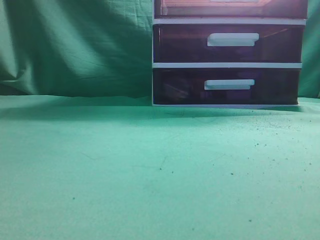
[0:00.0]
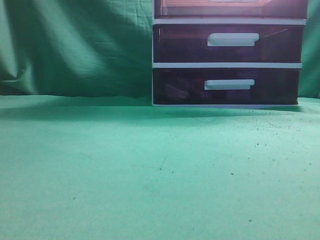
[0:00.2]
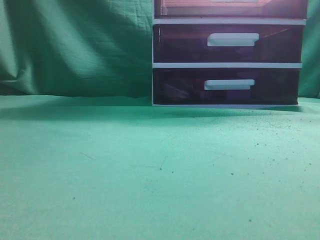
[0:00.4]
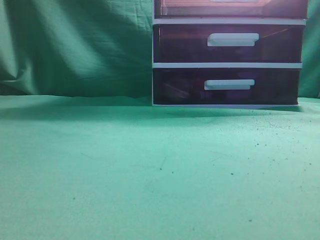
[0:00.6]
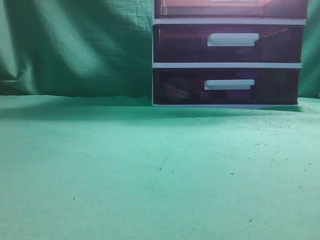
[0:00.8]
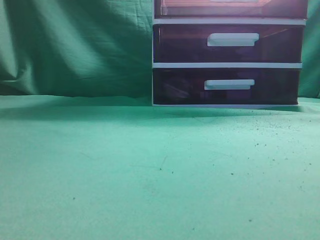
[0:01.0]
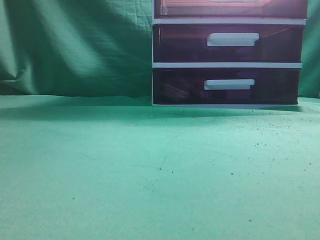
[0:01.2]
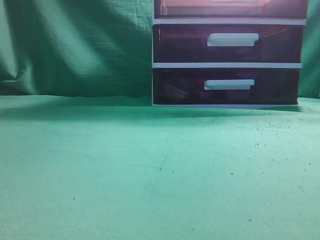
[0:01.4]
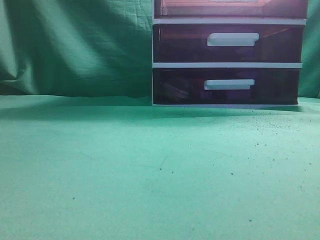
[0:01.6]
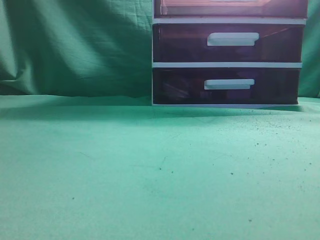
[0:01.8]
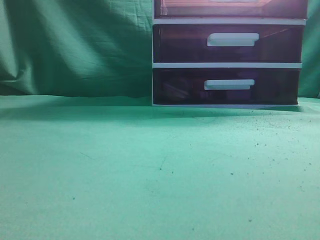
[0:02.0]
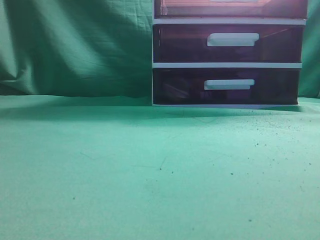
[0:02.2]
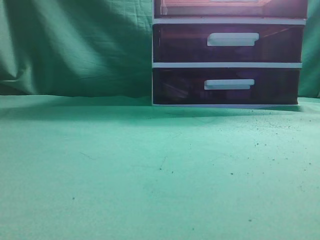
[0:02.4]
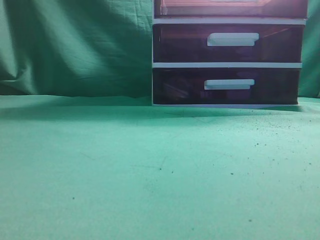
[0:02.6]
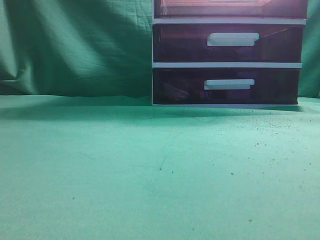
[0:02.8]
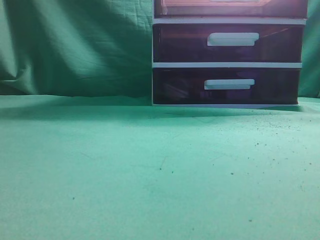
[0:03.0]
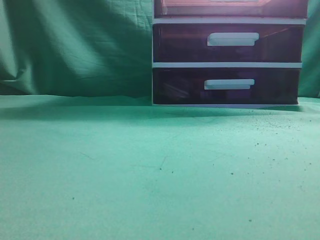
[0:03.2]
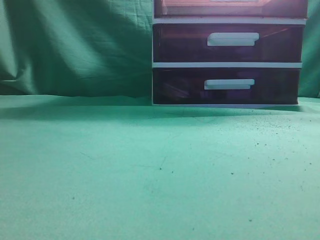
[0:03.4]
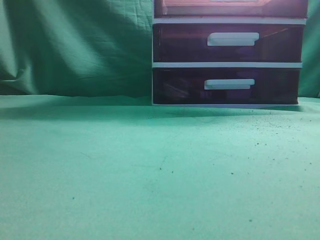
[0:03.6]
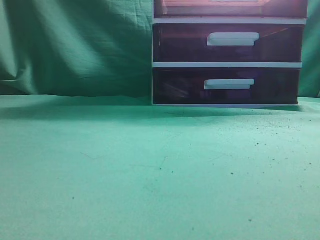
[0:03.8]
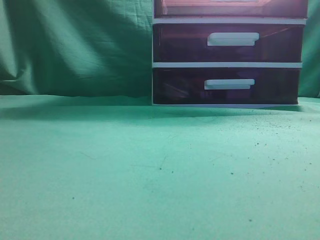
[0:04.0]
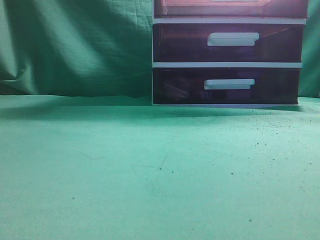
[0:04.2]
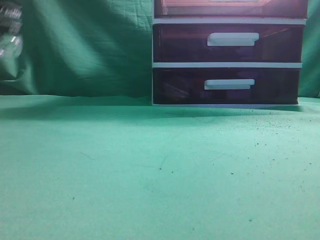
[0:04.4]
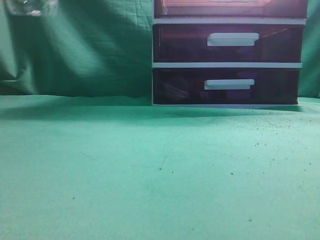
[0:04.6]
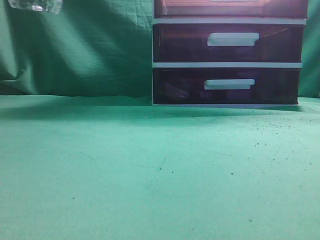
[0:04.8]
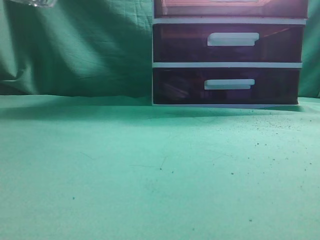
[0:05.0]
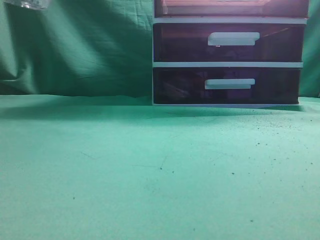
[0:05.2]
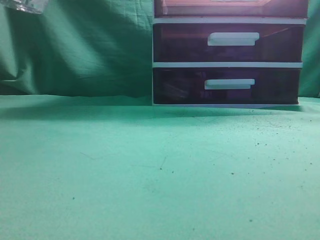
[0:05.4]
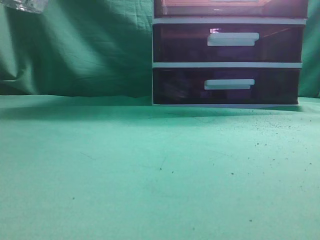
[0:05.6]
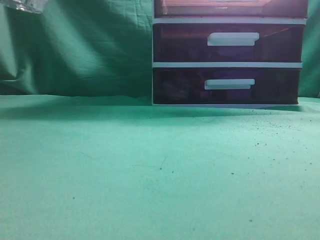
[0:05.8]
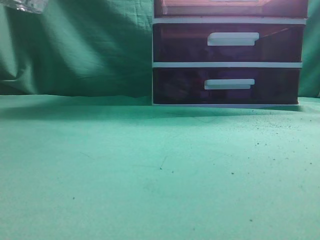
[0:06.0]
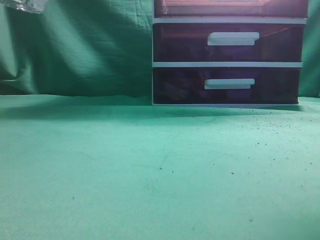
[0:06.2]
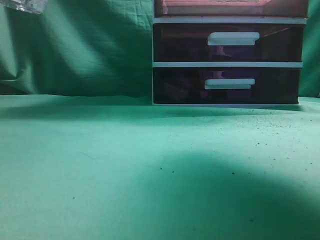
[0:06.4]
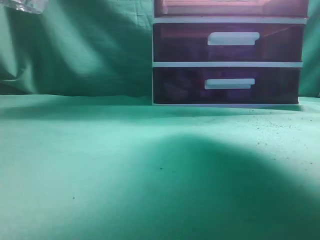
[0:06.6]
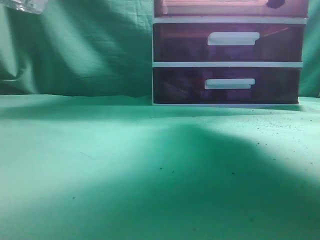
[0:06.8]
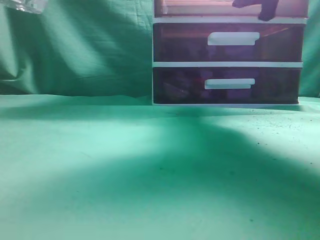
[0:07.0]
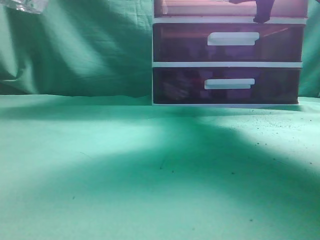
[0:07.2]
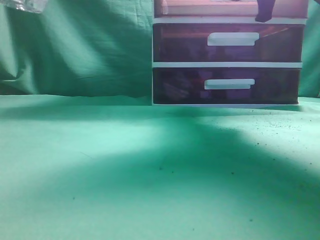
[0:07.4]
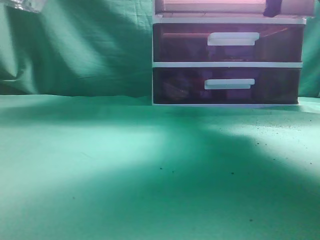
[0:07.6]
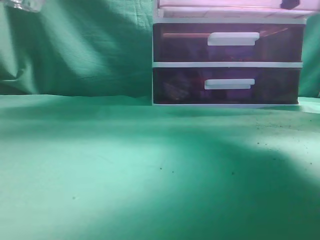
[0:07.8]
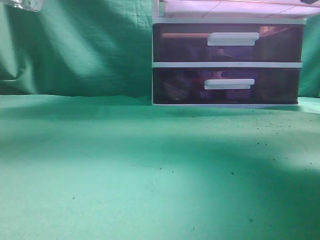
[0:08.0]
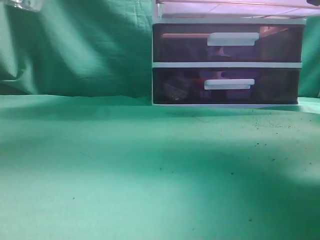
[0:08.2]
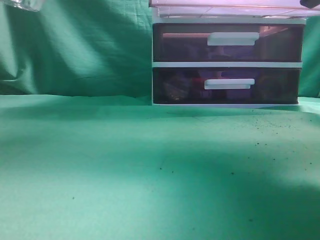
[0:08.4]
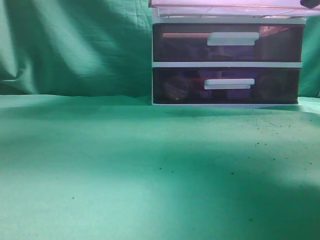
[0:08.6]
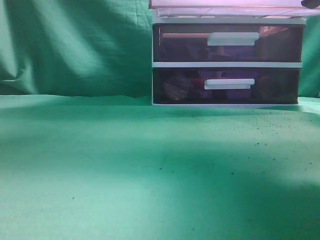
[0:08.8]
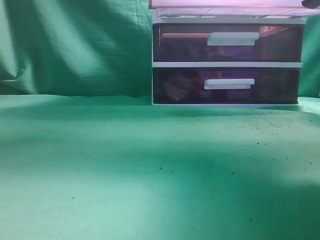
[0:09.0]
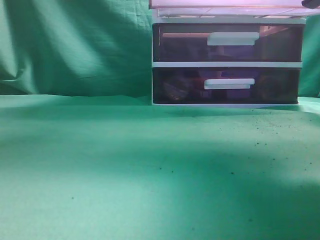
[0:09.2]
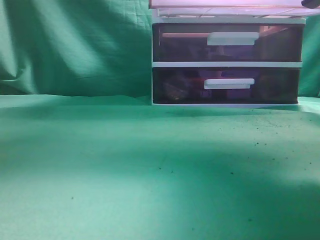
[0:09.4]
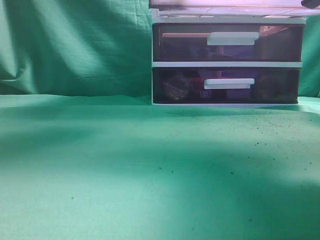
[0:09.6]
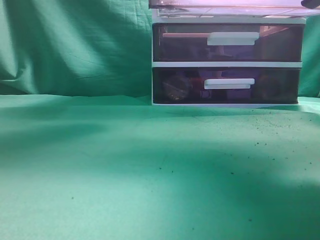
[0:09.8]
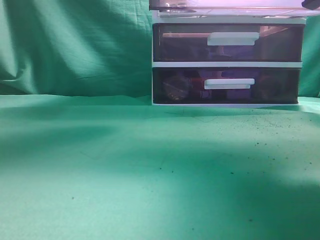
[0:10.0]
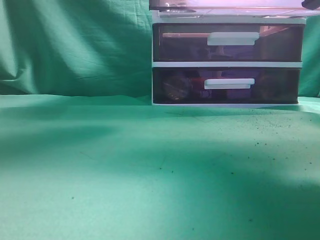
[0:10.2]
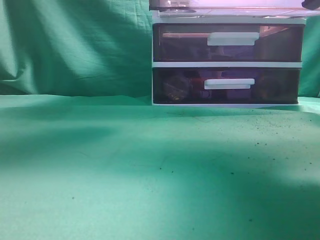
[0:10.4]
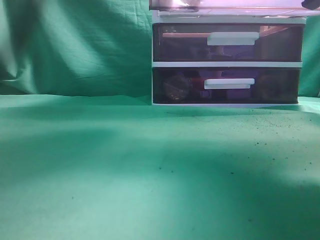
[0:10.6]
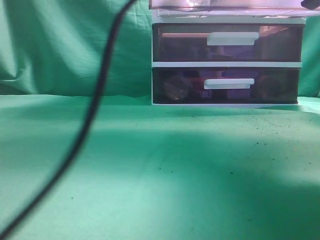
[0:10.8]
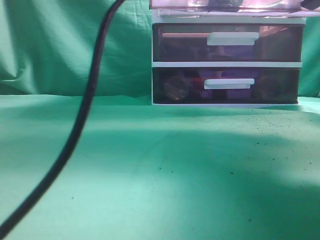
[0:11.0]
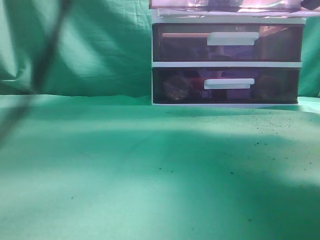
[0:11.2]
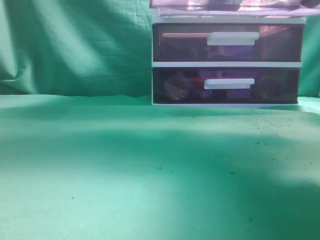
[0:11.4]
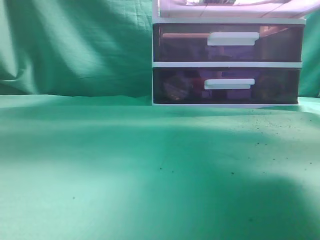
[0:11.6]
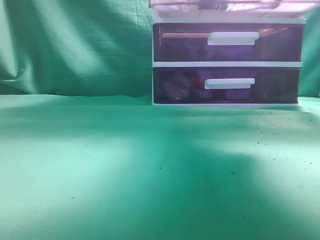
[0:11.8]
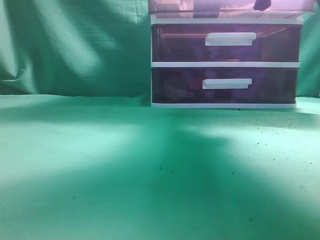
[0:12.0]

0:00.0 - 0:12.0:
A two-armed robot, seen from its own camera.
Task of the whole recording: place the water bottle into the drawer.
Step, 0:00.0 - 0:08.2: Open the drawer.
Step, 0:08.4 - 0:11.2: Place the water bottle inside the drawer.
0:03.0 - 0:04.4: The left gripper goes approximately 10 cm forward and to the right, and closes up.
0:04.4 - 0:06.0: The left gripper moves to the right, upward and backward, about 15 cm.
0:06.0 - 0:07.6: The right gripper goes roughly 25 cm forward, and opens, then closes again.
0:07.6 - 0:09.0: The right gripper moves backward, about 15 cm; the left gripper is displaced upward by some 15 cm.
0:09.0 - 0:10.4: The left gripper heads forward, to the right and downward, covering roughly 20 cm.
0:10.4 - 0:12.0: The right gripper shifts some 10 cm forward, while the left gripper heads backward, to the left and upward, covering about 20 cm, and closes its fingers.

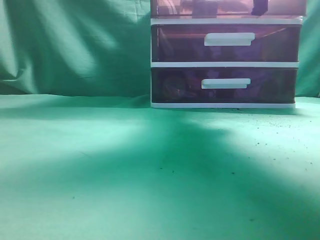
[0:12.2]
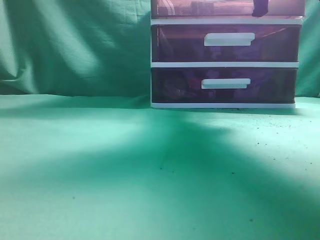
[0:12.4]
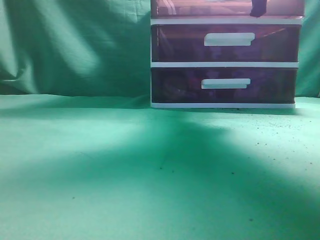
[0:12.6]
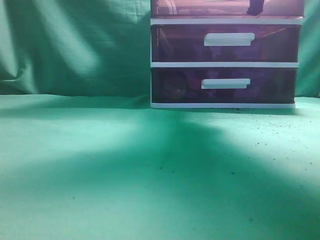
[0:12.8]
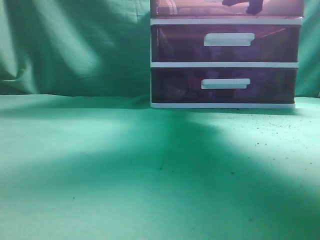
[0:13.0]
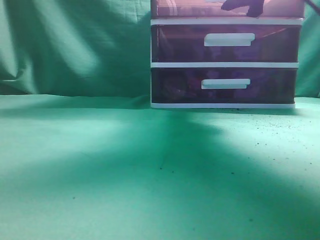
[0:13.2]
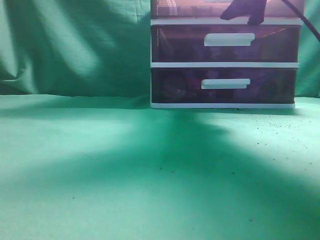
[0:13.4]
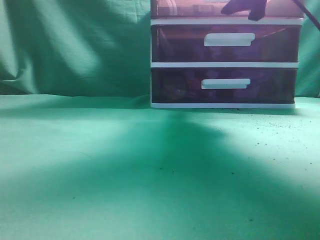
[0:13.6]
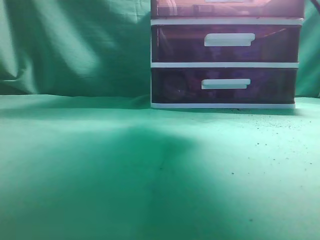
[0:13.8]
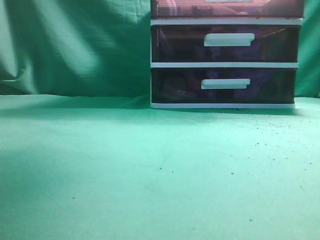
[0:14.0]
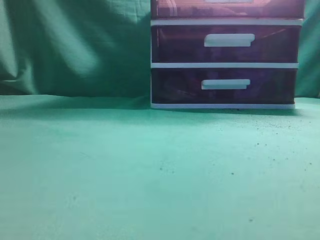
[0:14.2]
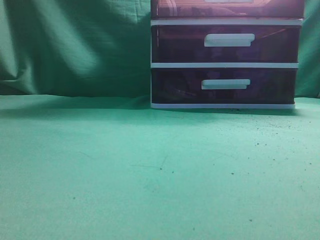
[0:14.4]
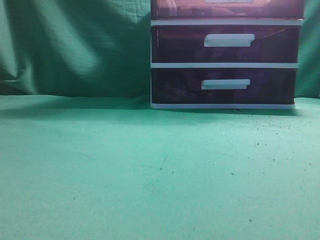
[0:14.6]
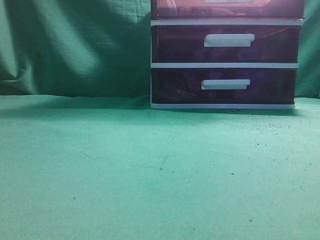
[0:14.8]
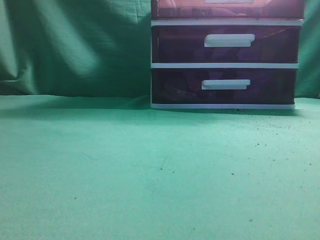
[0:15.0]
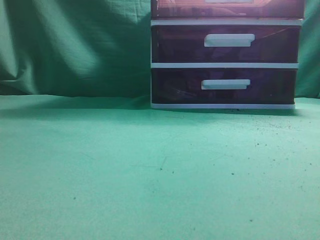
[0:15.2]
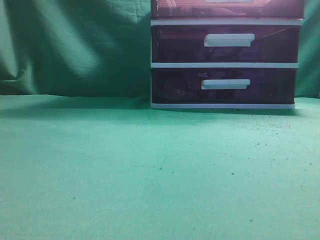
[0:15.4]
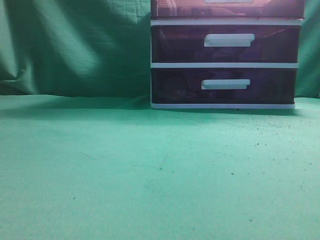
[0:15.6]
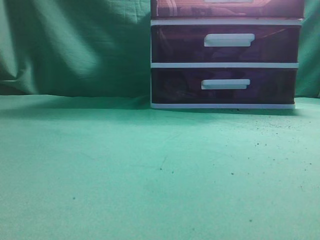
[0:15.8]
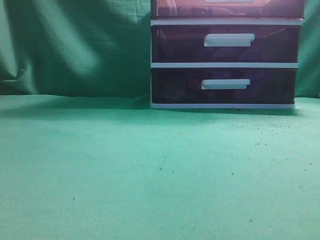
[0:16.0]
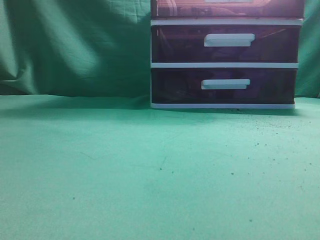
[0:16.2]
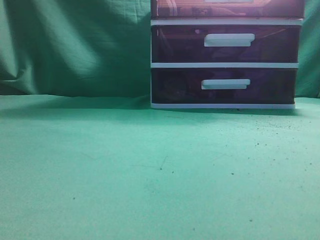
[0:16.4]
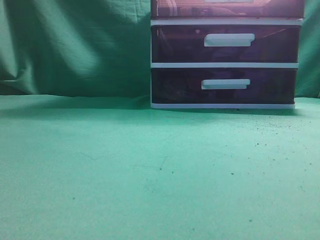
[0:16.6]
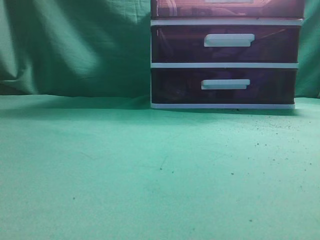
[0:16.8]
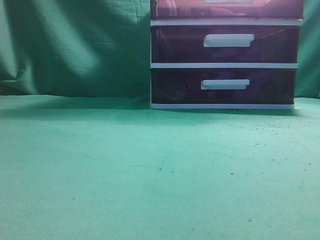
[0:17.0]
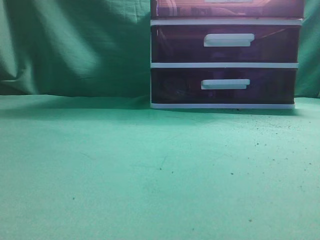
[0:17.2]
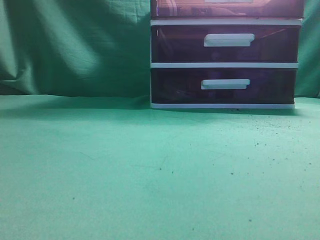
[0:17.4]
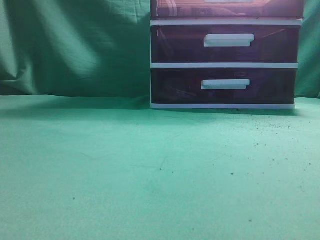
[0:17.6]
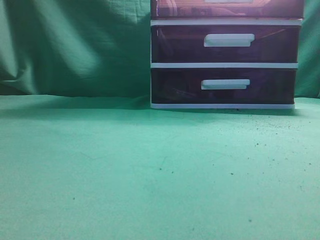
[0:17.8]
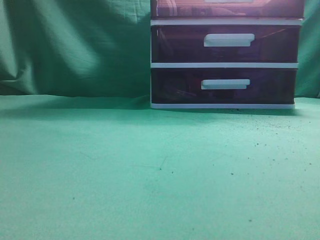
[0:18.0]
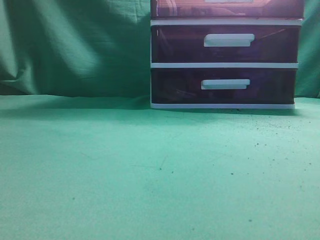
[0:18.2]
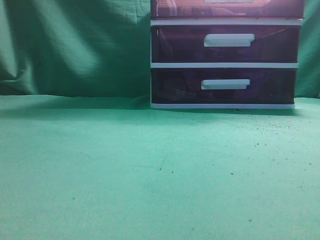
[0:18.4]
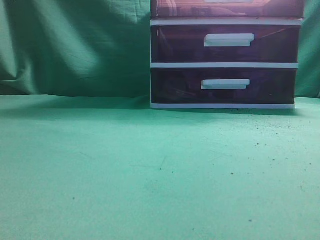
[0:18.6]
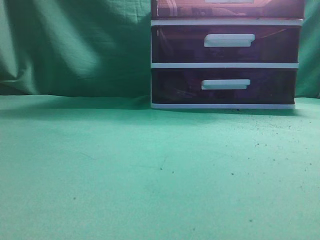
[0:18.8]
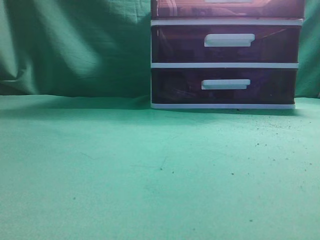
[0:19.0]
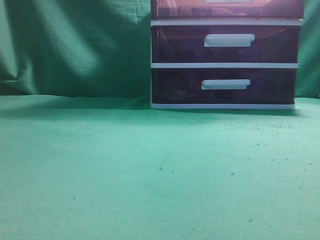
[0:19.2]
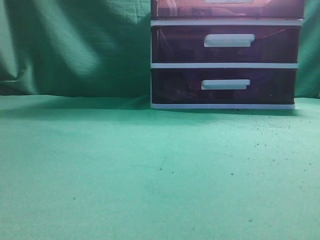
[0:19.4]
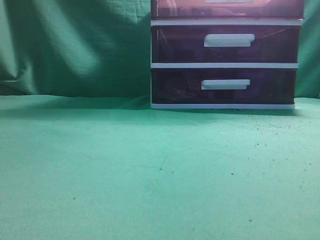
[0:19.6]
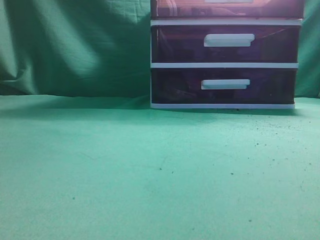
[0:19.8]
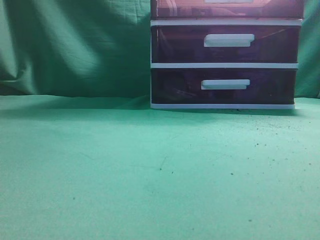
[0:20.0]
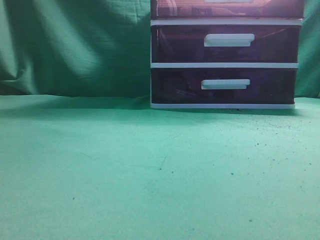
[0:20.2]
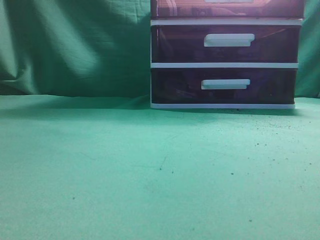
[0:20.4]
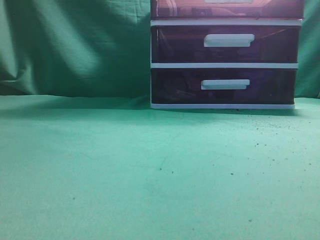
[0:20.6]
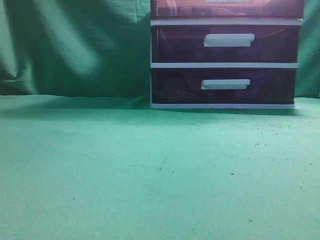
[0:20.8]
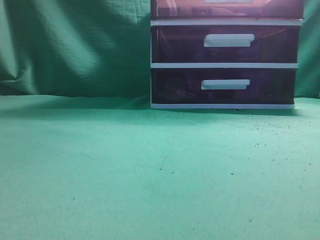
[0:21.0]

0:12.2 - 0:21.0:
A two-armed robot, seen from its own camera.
Task of the whole recording: place the water bottle into the drawer.
Step, 0:12.2 - 0:13.6: Close the drawer.
0:12.2 - 0:13.6: The right gripper opens its fingers.
0:13.6 - 0:15.2: The right gripper travels backward and upward by approximately 35 cm, and closes, while the left gripper moves downward, backward and to the left, some 25 cm.
0:19.6 - 0:21.0: Neither gripper changes place.
